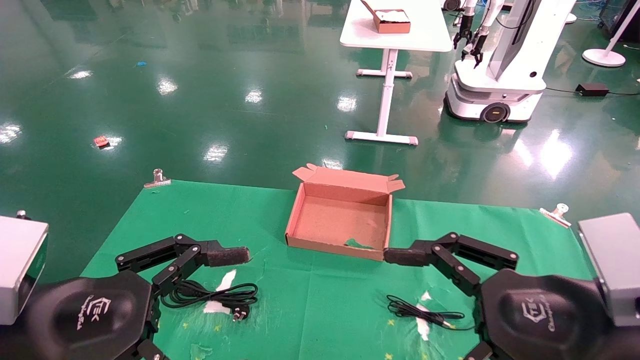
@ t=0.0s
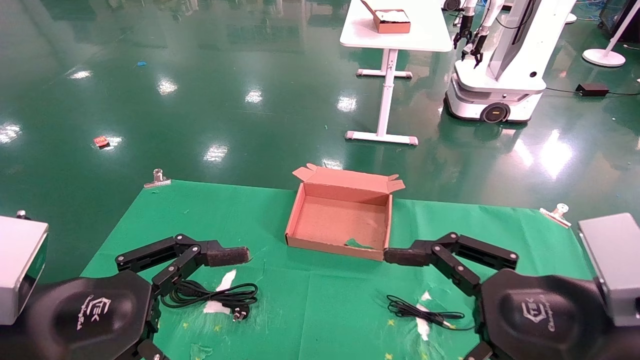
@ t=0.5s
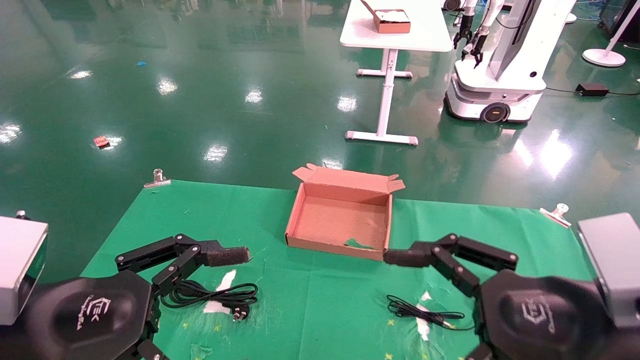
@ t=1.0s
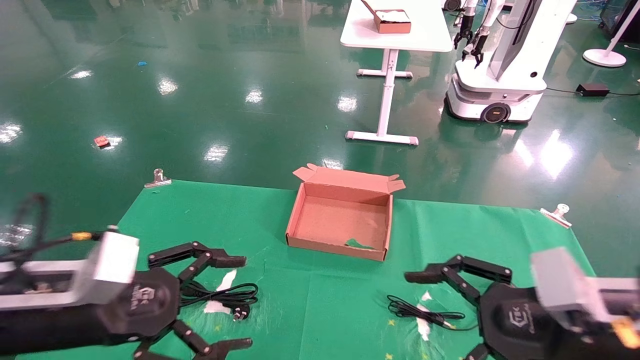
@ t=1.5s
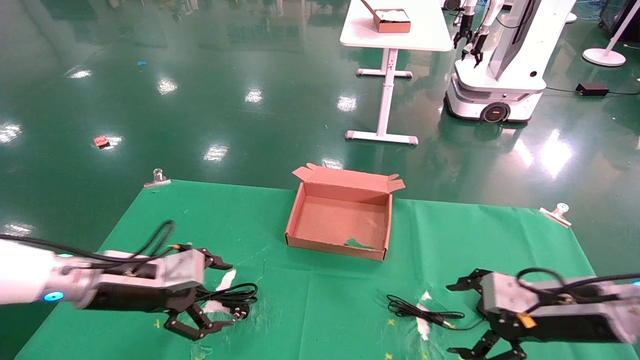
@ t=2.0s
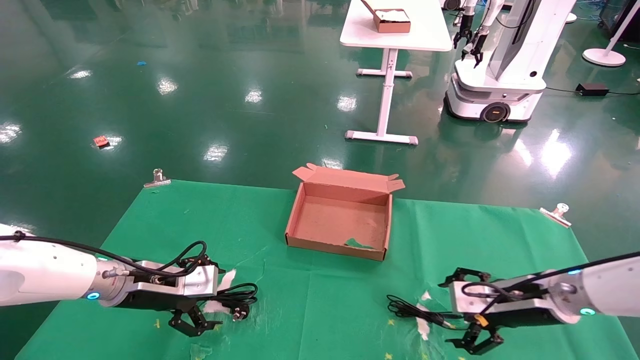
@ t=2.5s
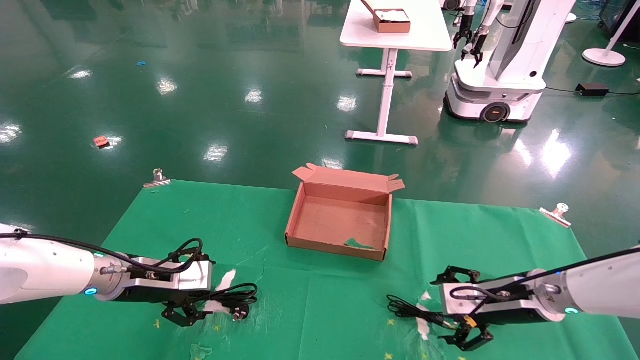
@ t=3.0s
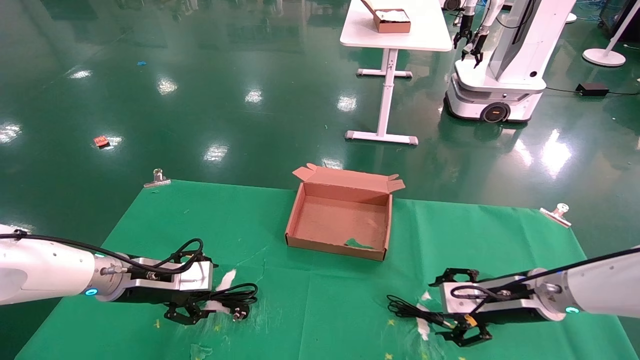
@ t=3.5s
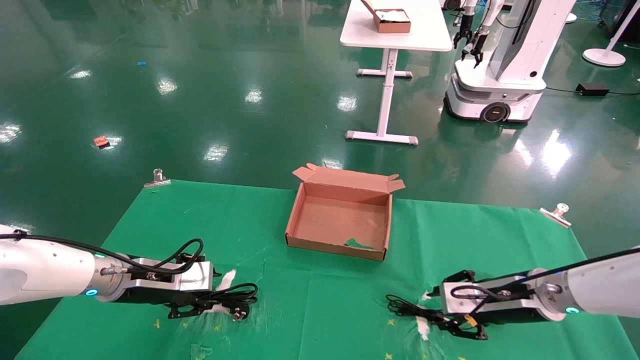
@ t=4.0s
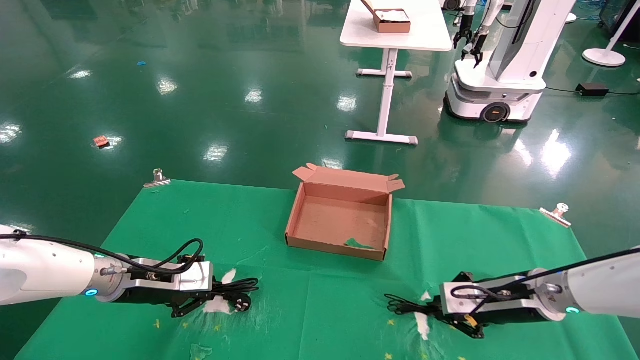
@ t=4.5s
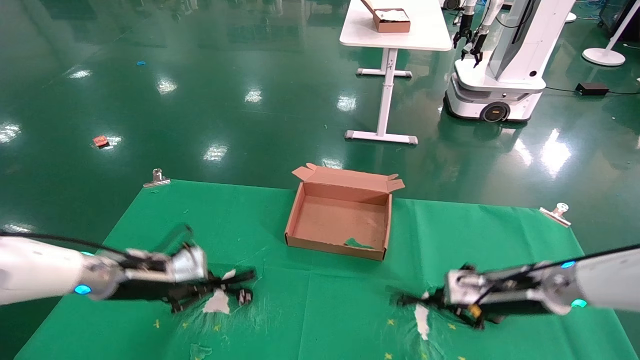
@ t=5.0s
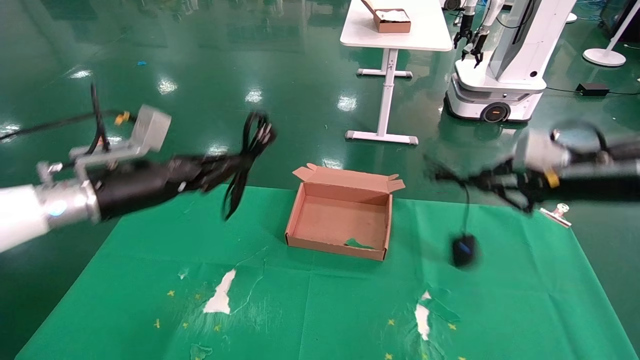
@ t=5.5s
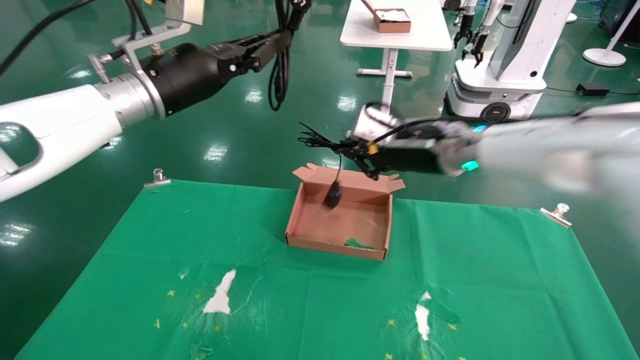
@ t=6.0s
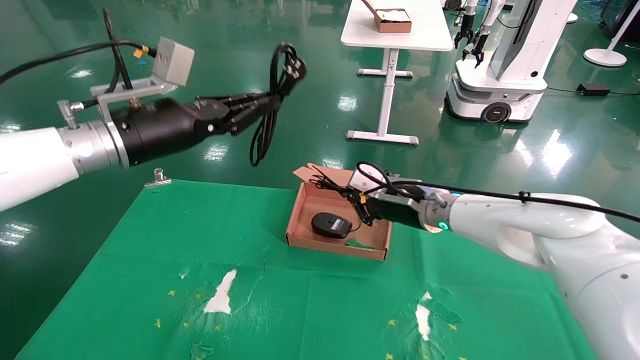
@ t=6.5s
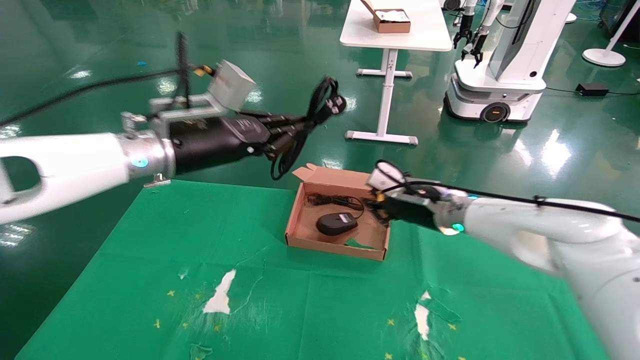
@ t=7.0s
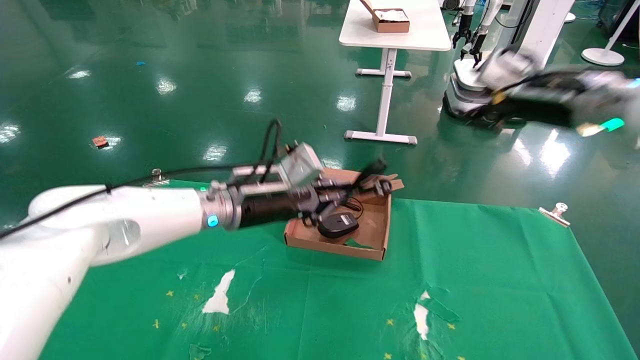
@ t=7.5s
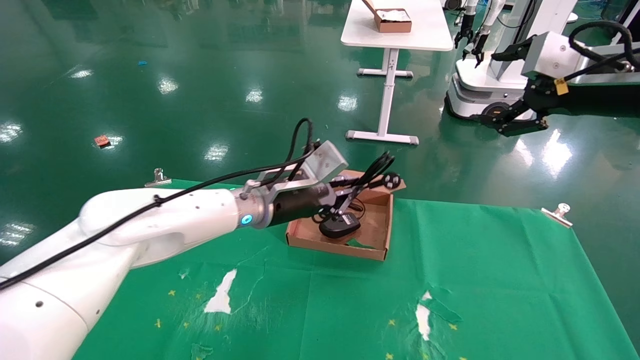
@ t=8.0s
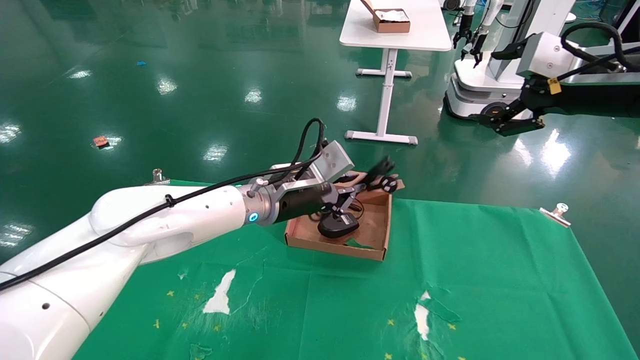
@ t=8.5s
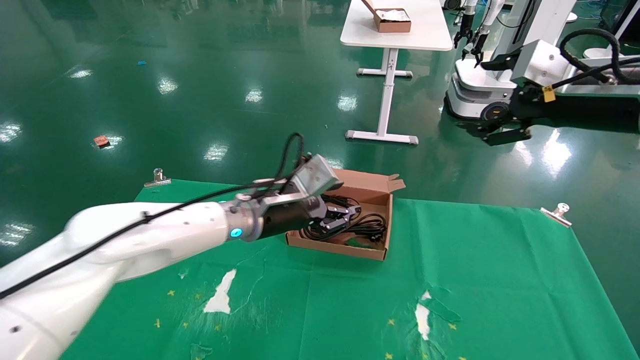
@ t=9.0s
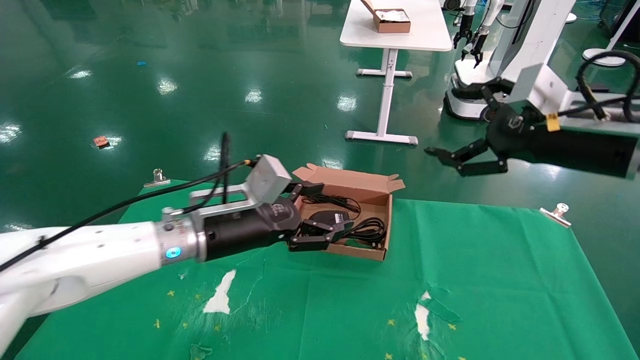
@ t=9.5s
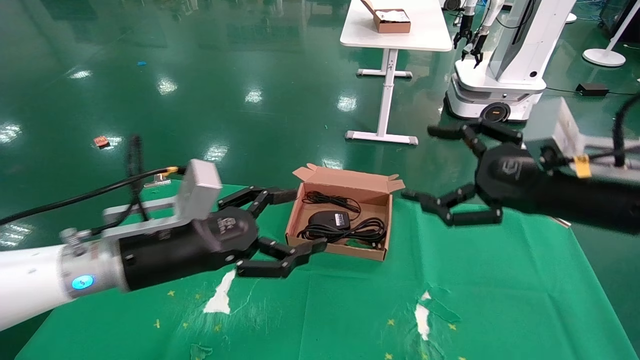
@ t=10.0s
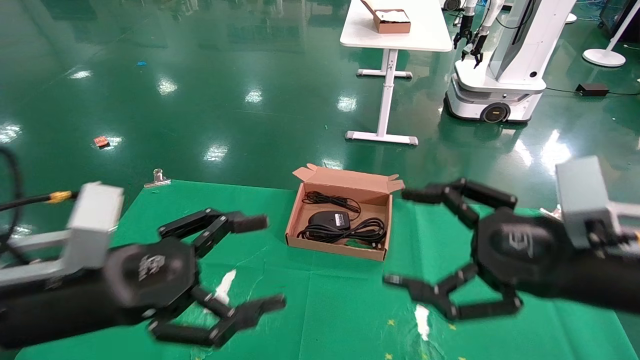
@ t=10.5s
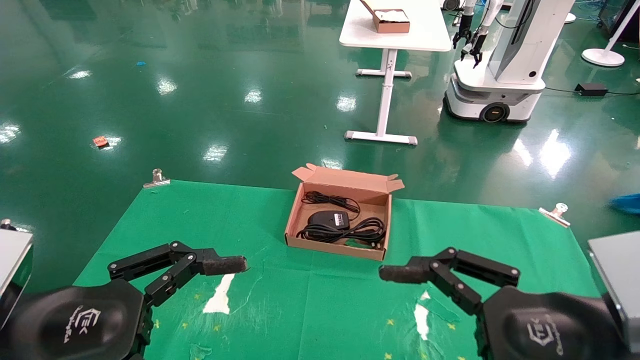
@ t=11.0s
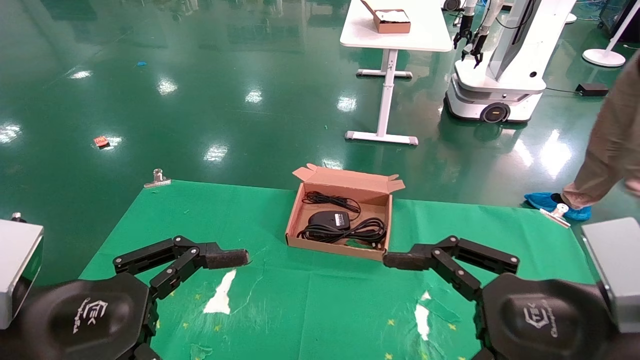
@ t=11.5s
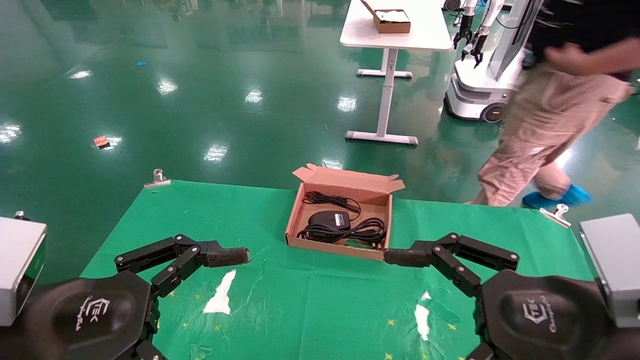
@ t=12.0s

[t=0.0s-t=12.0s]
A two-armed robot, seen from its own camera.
Step, t=1.5s to t=4.5s: Grab and lift both the mouse and power cord from the accessory packaging area at the same time.
Step, t=5.0s to t=8.5s: Place the mouse and power cord into the box.
t=0.0s to t=2.0s: The right gripper is displaced forward, downward and to the right by roughly 20 cm, while the left gripper goes approximately 20 cm forward.
t=2.0s to t=4.0s: The grippers both shift forward by roughly 5 cm. The left gripper closes up, while the right gripper closes.
t=4.0s to t=6.0s: The left gripper shifts about 25 cm upward, and closes its fingers. The right gripper travels upward and to the left by roughly 20 cm, and closes its fingers.
t=6.0s to t=8.0s: The right gripper heads to the right, upward and backward, covering about 20 cm, and opens up; the left gripper moves downward and to the right, approximately 20 cm.
t=8.0s to t=10.0s: The left gripper shifts some 20 cm backward and to the left, and opens its fingers. Meanwhile the right gripper goes approximately 15 cm downward, backward and to the left.
t=10.0s to t=12.0s: The right gripper shifts about 15 cm backward and downward. Meanwhile the left gripper travels backward and to the left by about 15 cm.
